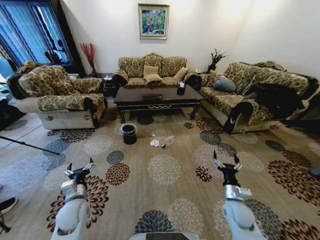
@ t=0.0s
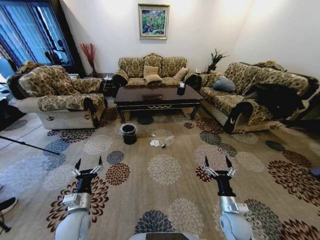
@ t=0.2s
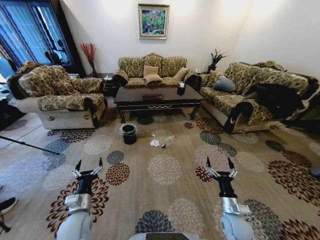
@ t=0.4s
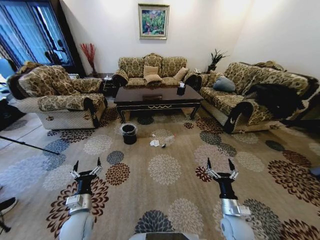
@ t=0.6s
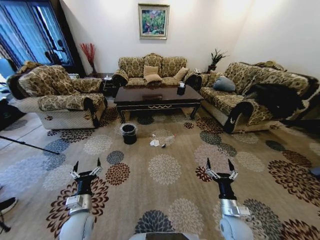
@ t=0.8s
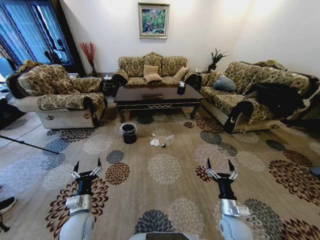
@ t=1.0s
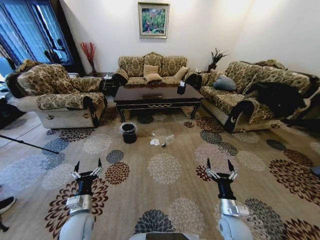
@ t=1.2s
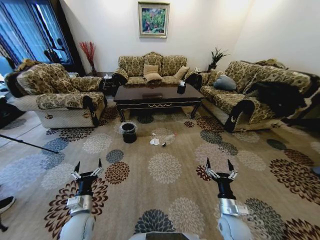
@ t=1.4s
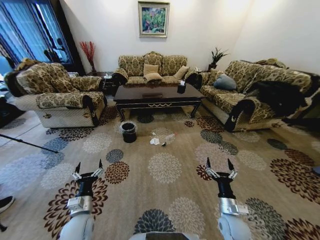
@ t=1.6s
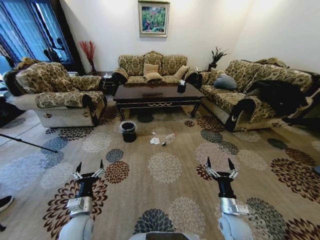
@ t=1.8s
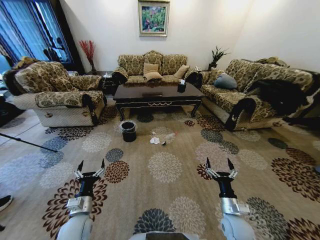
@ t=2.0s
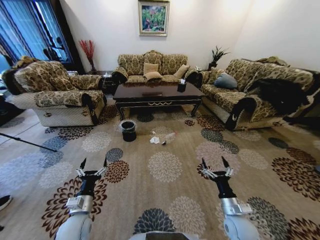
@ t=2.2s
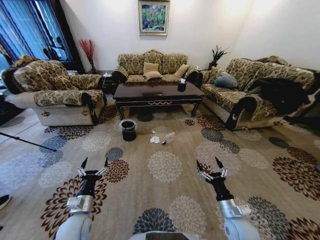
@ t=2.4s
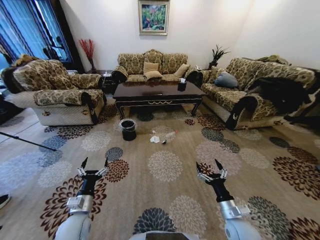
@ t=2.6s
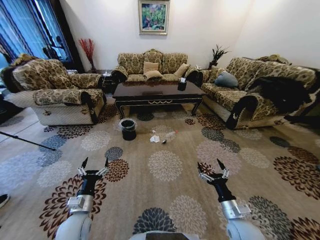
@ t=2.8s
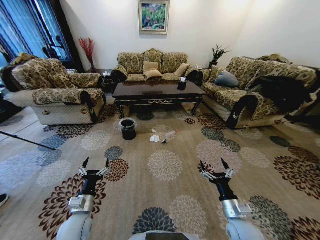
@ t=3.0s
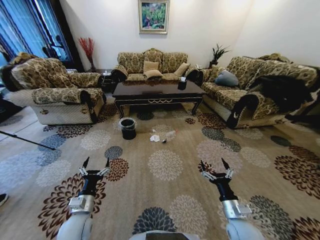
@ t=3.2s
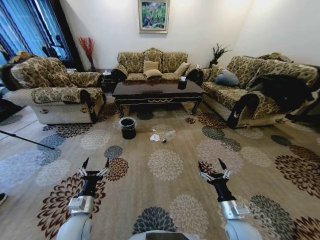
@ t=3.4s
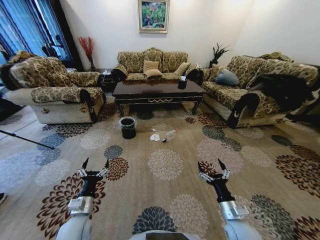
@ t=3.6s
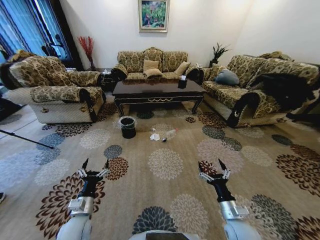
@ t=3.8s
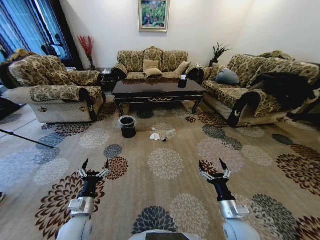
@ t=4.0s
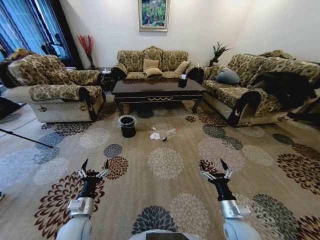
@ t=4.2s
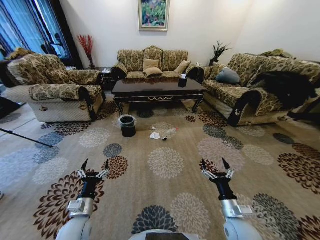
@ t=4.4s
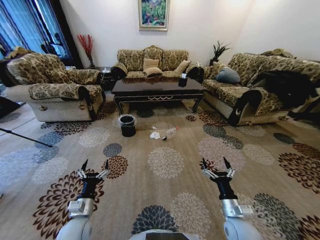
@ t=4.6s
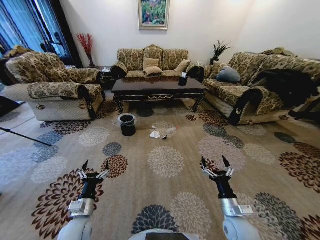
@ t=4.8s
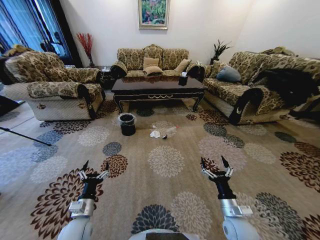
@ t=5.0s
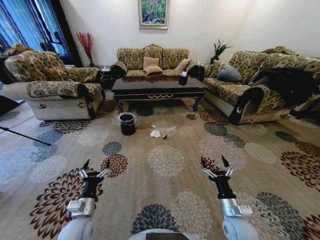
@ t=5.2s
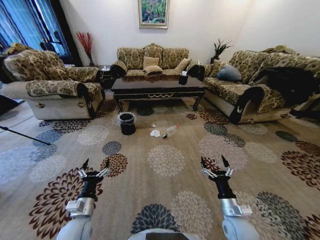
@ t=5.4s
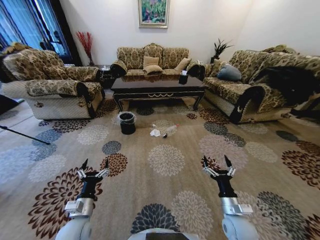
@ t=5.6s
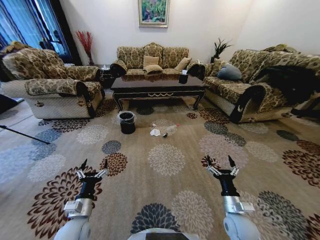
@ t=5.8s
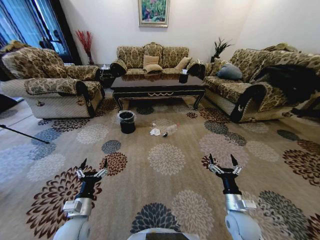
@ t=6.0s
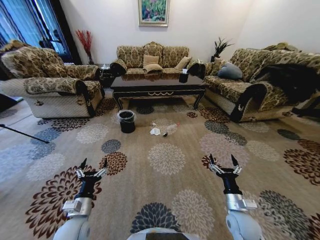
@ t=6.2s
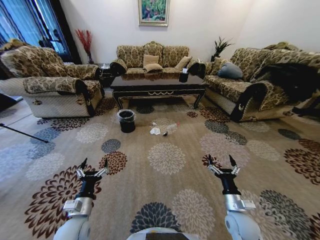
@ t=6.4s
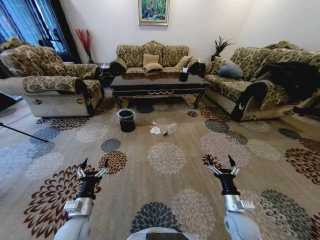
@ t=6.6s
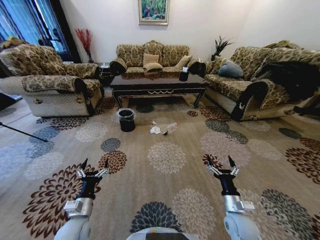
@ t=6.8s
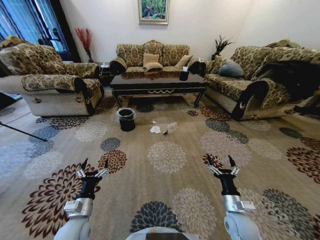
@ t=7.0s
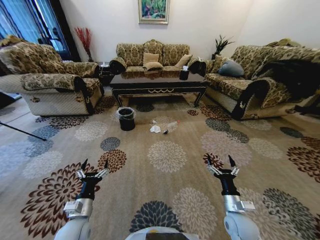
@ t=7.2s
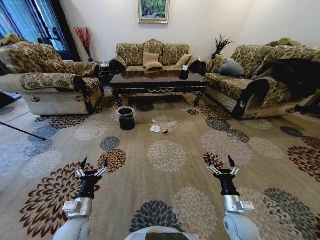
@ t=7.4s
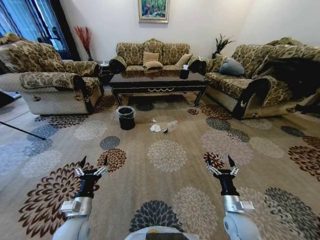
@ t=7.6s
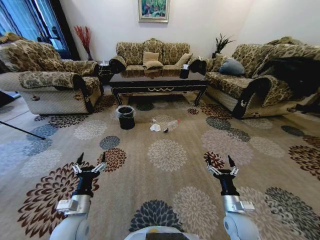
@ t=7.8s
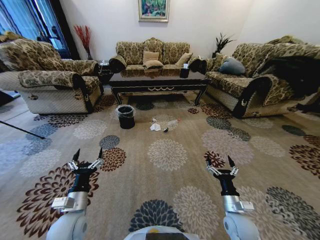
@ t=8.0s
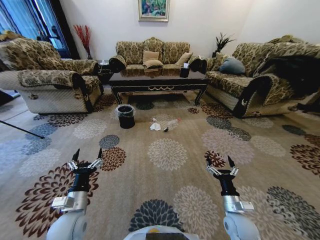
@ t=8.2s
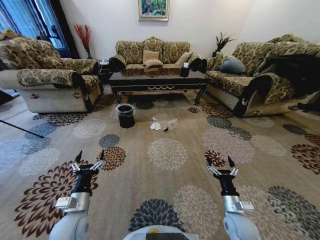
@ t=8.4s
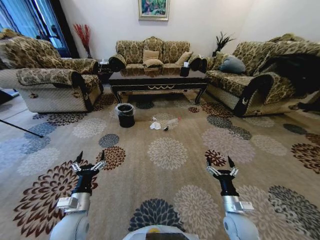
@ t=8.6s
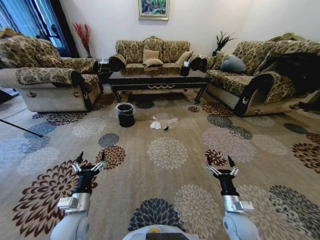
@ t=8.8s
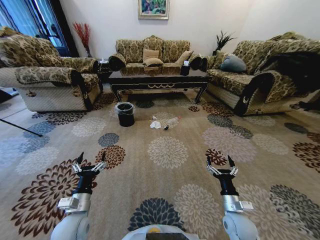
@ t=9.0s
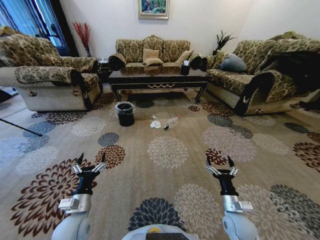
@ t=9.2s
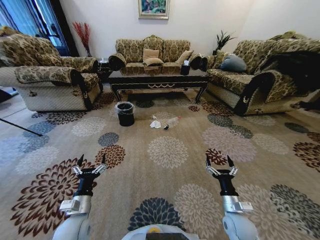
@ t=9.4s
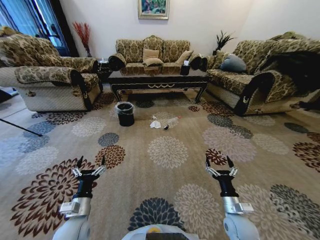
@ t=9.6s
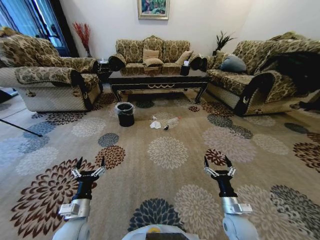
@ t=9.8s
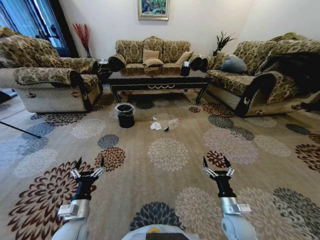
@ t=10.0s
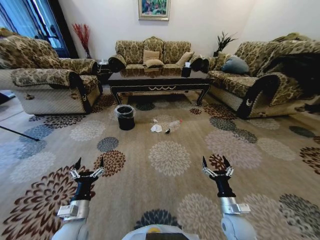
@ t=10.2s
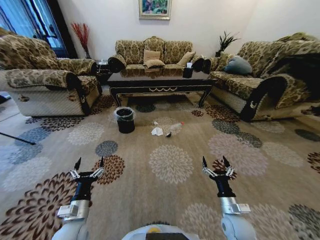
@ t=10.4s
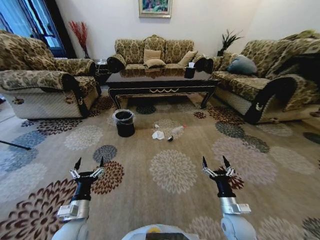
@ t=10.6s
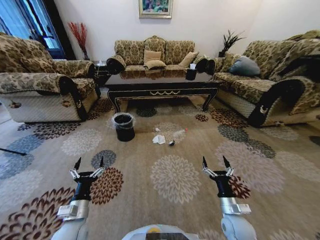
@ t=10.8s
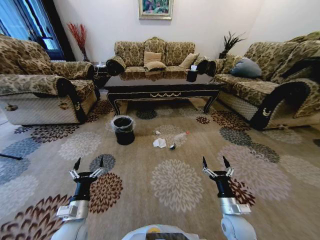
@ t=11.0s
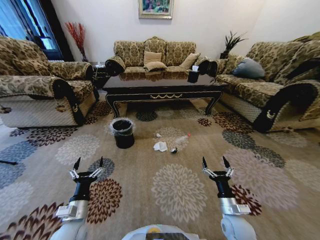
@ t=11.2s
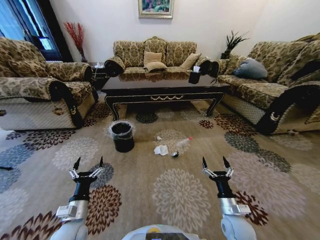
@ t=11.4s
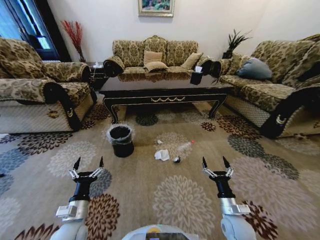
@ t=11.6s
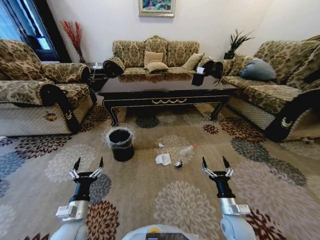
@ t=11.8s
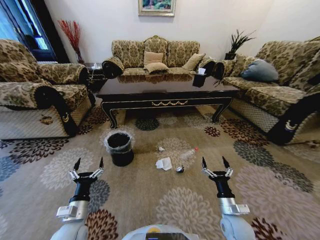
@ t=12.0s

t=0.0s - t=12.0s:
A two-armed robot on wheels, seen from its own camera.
Task of the whole recording: Move to the front of the table and pick up the trash from the floor, then place it into the trash bin.
t=1.6s - t=3.0s: The right gripper moves upward, some 5 cm.

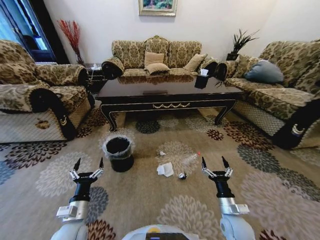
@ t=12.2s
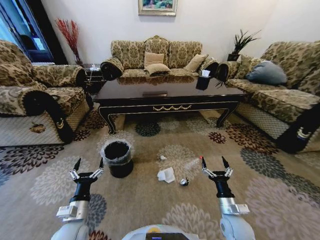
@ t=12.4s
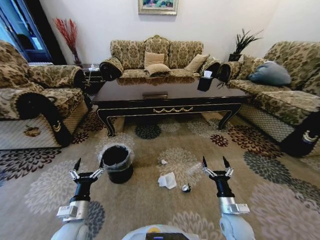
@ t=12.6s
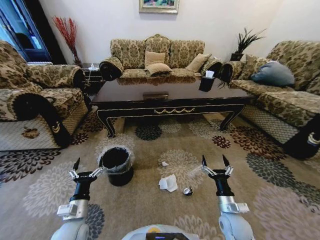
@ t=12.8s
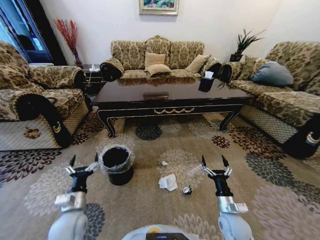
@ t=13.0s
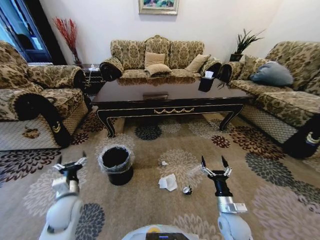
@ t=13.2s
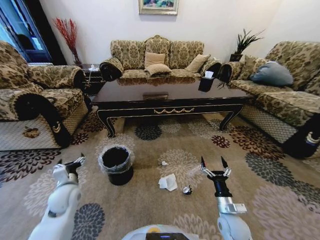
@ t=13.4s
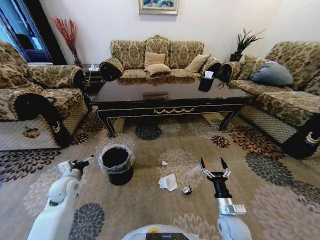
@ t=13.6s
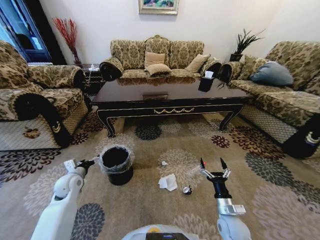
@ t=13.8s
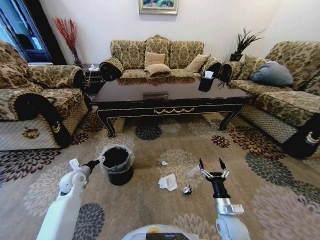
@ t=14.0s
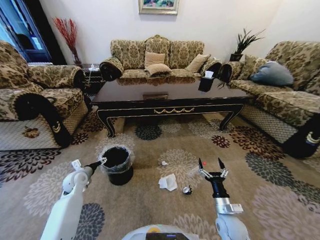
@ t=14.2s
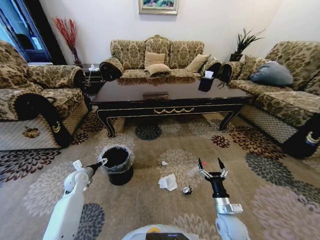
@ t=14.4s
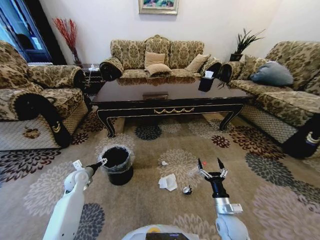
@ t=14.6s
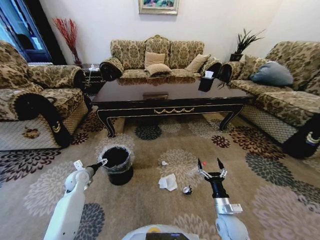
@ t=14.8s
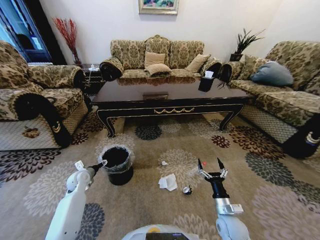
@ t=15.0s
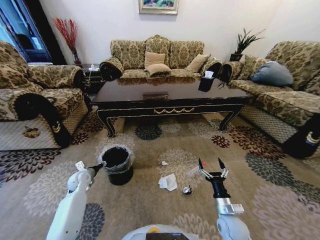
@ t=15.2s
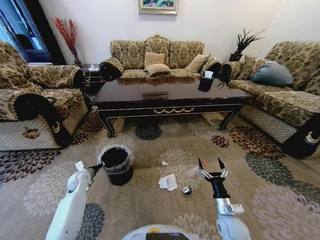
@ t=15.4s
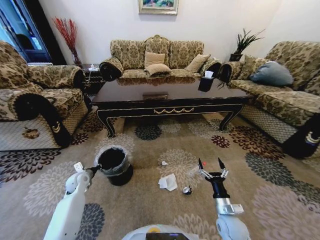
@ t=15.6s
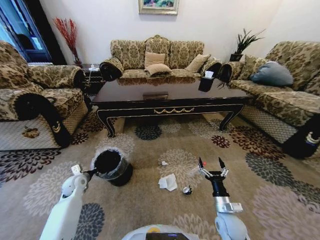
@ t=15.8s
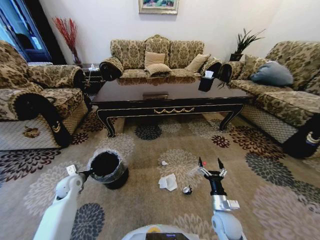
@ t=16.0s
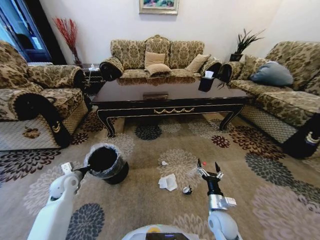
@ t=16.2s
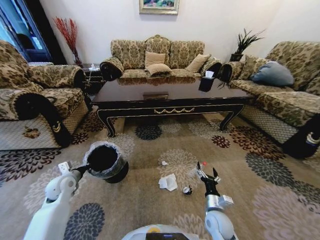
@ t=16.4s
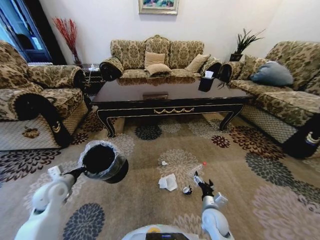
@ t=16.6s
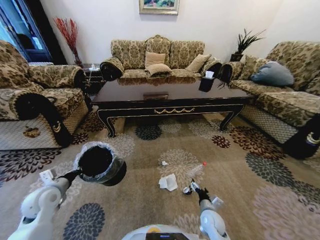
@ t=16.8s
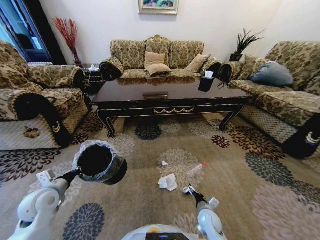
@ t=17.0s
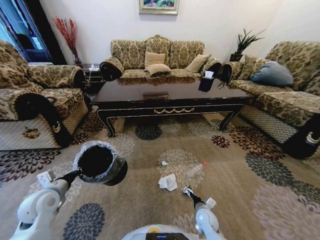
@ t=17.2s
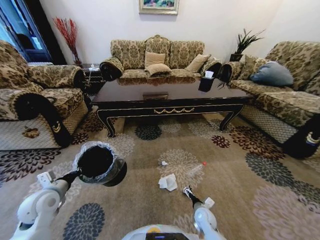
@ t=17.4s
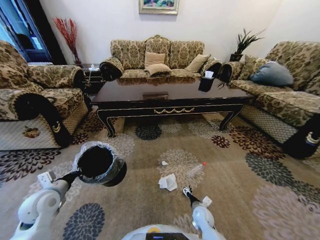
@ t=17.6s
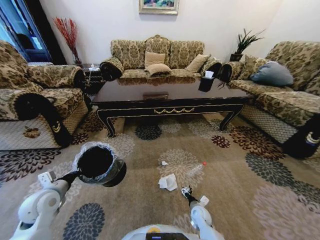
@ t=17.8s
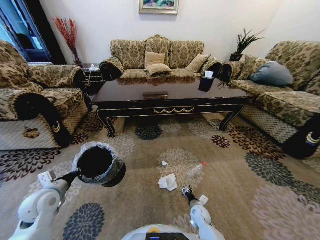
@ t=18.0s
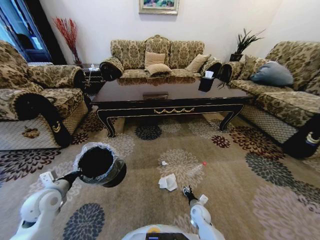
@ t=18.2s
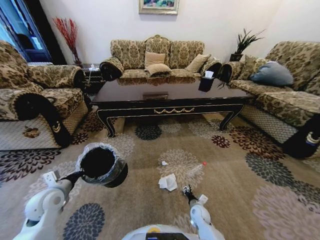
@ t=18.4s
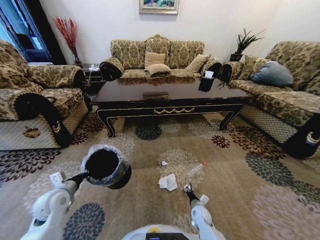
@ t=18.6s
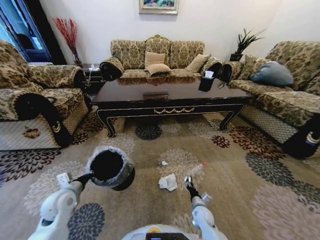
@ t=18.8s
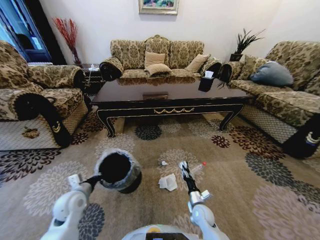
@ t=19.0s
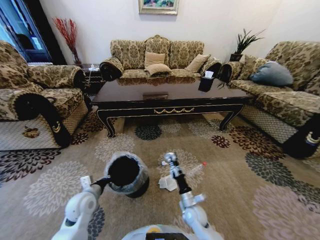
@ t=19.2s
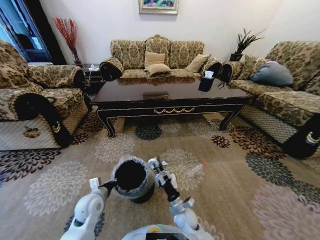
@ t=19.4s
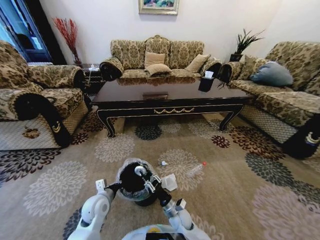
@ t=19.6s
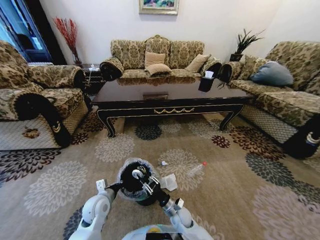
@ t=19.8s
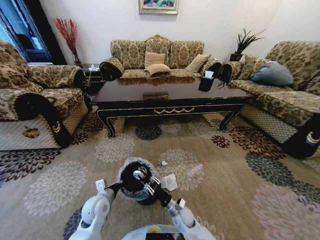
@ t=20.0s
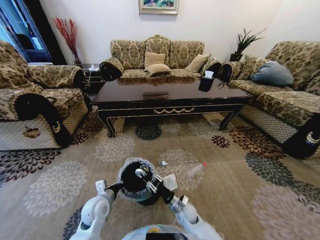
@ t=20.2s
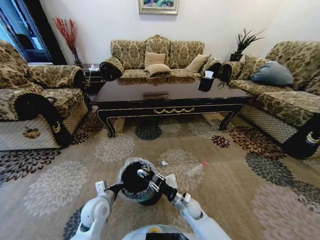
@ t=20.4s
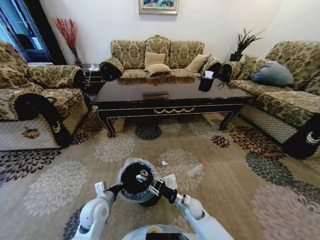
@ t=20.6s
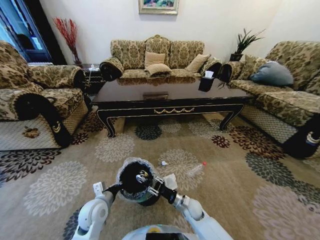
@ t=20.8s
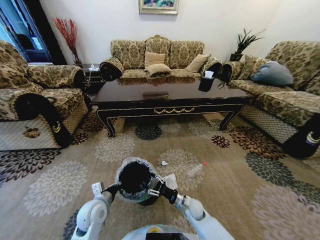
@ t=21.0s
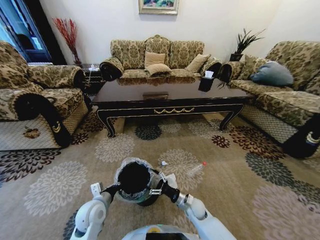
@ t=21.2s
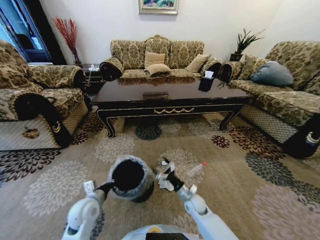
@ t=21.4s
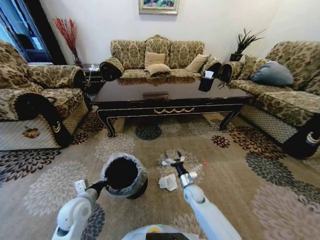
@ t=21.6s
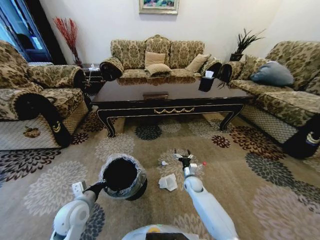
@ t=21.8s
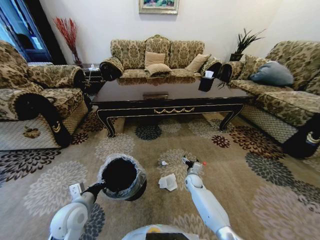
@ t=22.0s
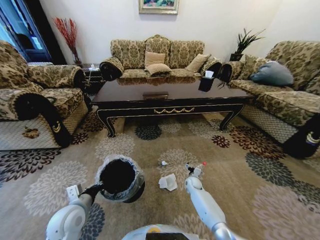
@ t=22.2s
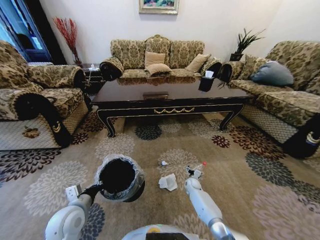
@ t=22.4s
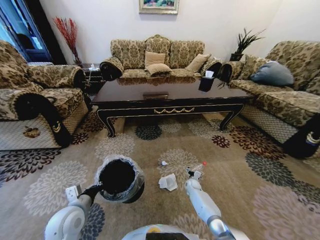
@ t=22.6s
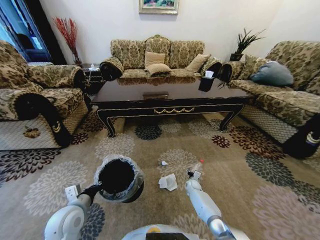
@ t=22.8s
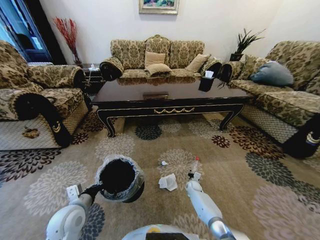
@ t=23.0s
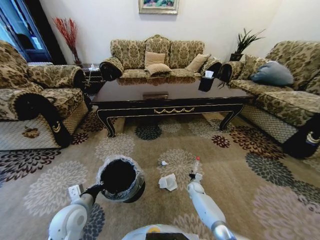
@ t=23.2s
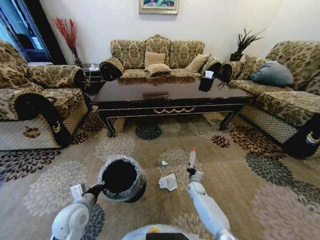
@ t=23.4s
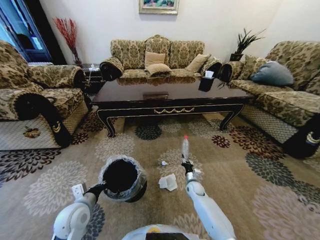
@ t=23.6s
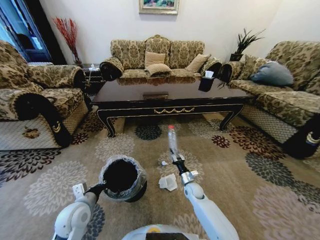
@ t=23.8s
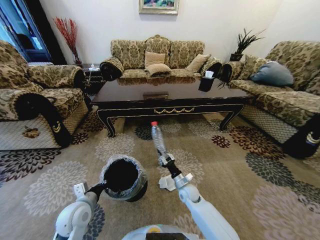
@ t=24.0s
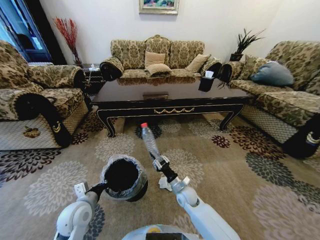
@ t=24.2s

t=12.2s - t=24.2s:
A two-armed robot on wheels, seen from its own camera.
Task of the whole recording: Move to the front of the table and pick up the trash from the floor, then place it into the trash bin.
t=12.2s - t=13.8s: The left gripper travels forward and to the left by some 20 cm.
t=13.8s - t=15.2s: The left gripper is displaced downward by approximately 5 cm, and closes its fingers.
t=15.2s - t=16.6s: The right gripper ends up about 5 cm from where it was, while the left gripper goes about 15 cm upward and backward, and closes.
t=16.6s - t=18.2s: The right gripper heads downward, covering roughly 10 cm.
t=18.2s - t=19.8s: The left gripper moves to the right and downward, approximately 20 cm. Meanwhile the right gripper moves to the left and upward, approximately 15 cm, and closes up.
t=19.8s - t=21.2s: The right gripper heads to the right, covering some 5 cm, and opens up.
t=21.2s - t=22.6s: The left gripper shifts by roughly 5 cm. The right gripper shifts about 20 cm forward, downward and to the right.
t=22.6s - t=24.2s: The right gripper travels upward, to the left and backward by roughly 20 cm, and closes up.
